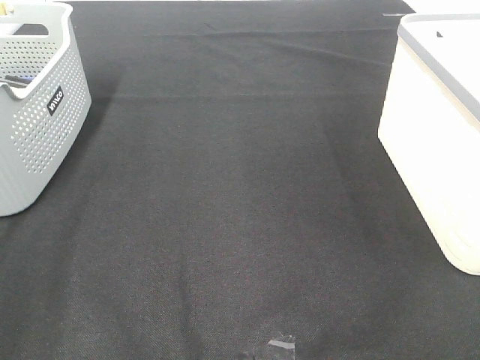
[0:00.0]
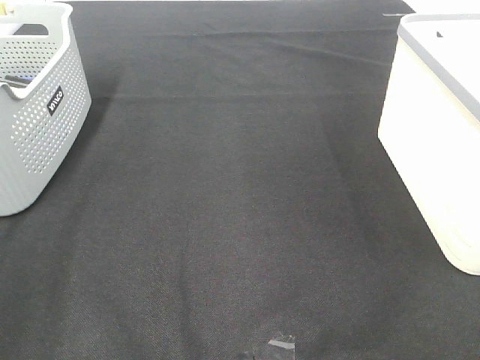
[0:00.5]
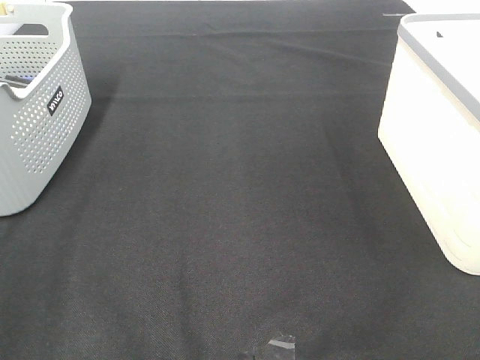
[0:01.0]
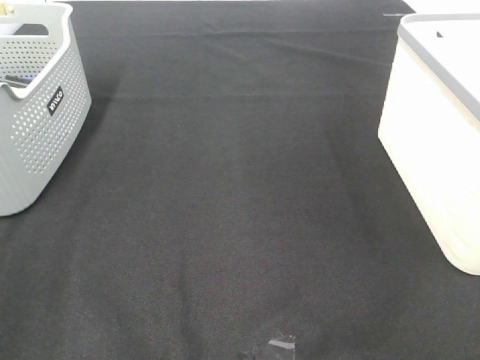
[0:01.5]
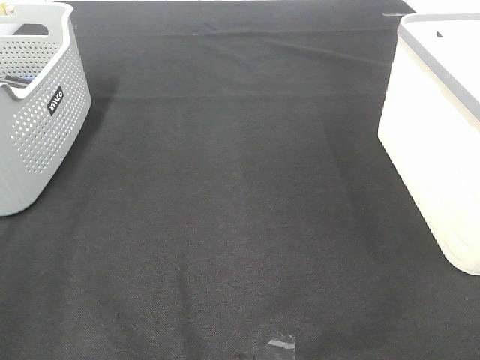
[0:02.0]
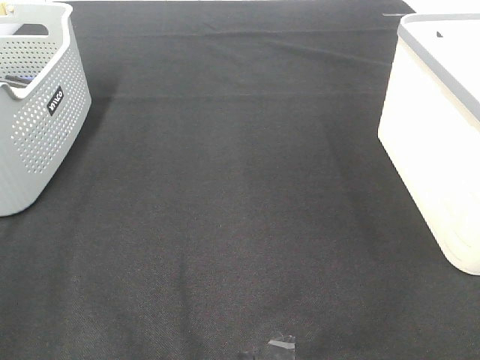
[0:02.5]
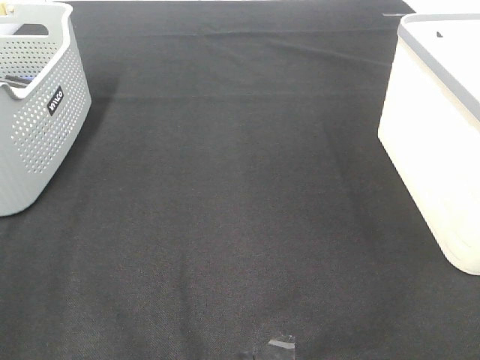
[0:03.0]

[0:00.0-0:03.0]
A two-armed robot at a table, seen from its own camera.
0:01.5 to 0:03.0: Both grippers stay about where they are.

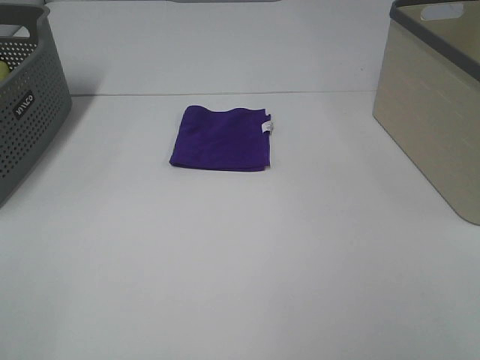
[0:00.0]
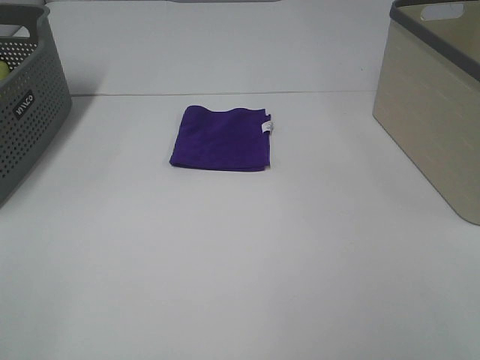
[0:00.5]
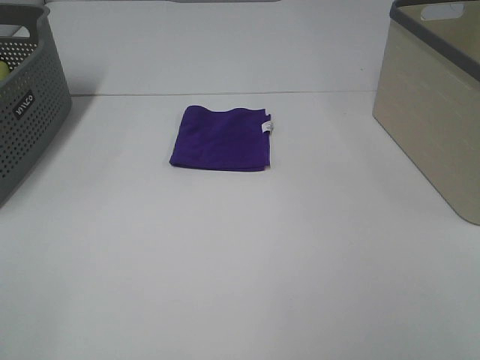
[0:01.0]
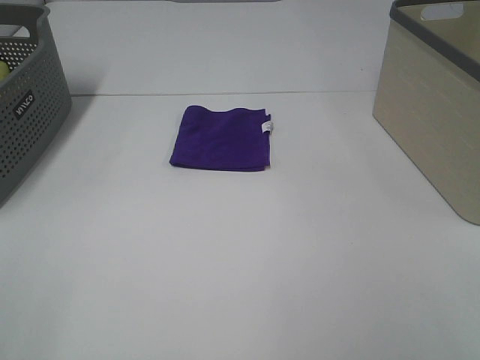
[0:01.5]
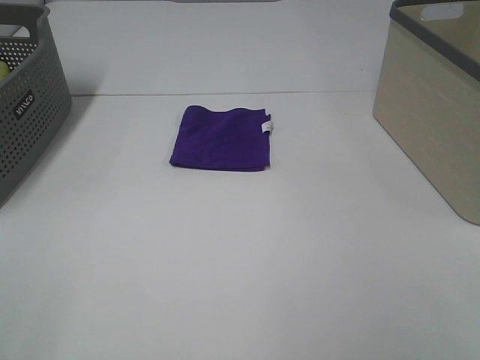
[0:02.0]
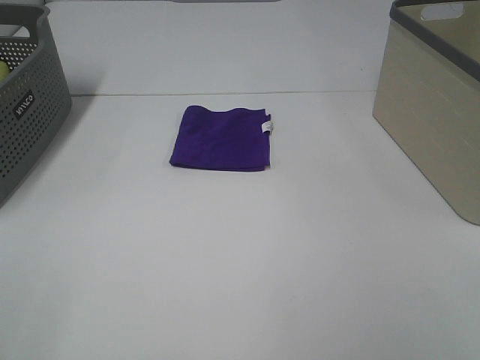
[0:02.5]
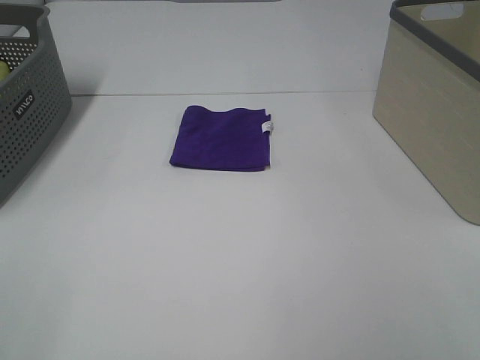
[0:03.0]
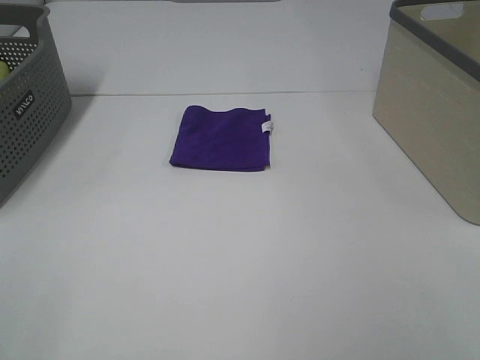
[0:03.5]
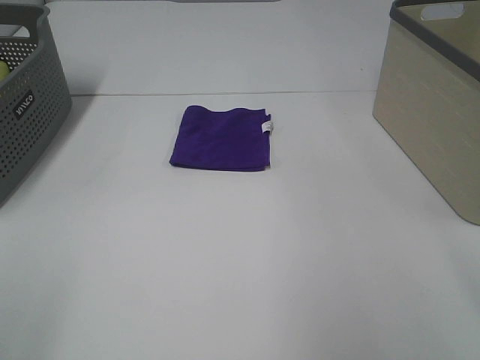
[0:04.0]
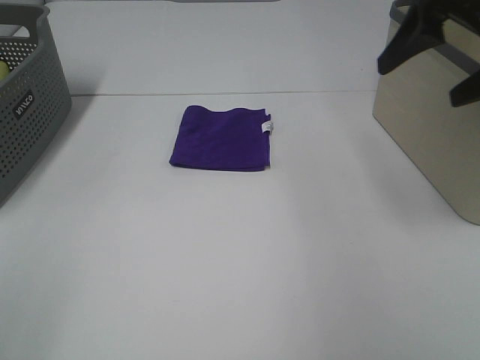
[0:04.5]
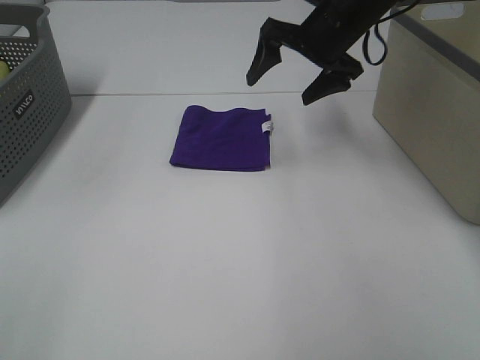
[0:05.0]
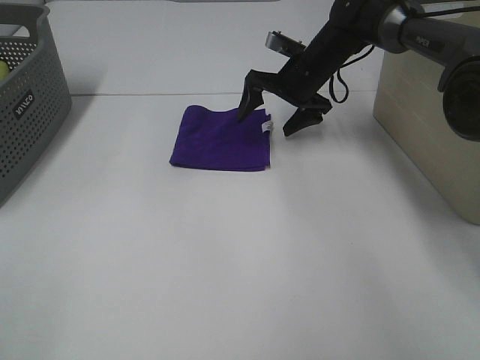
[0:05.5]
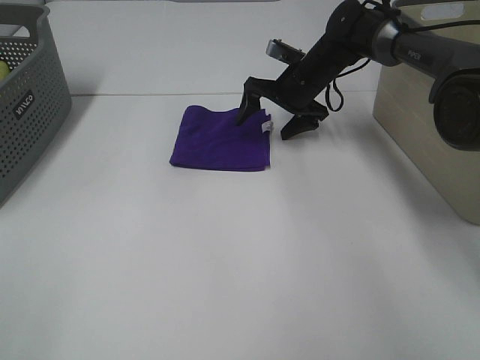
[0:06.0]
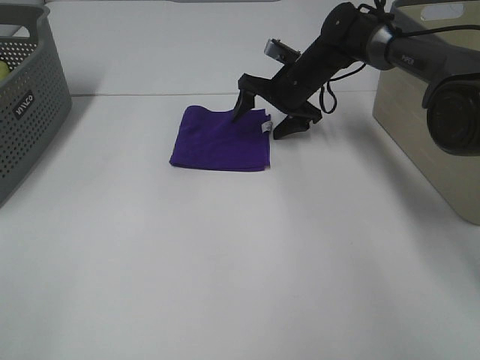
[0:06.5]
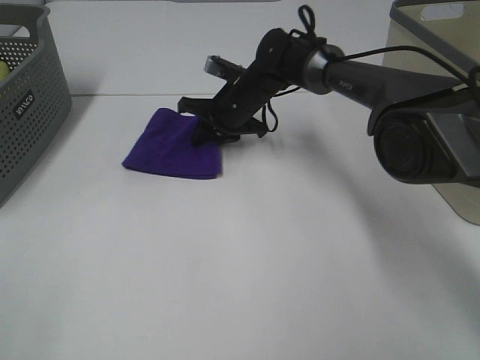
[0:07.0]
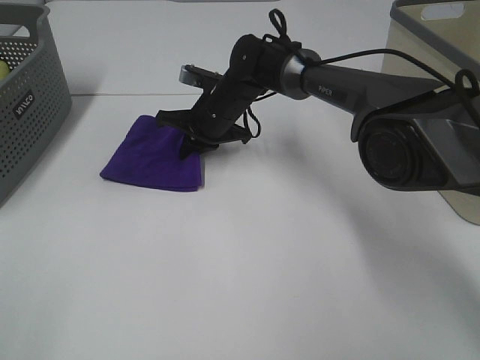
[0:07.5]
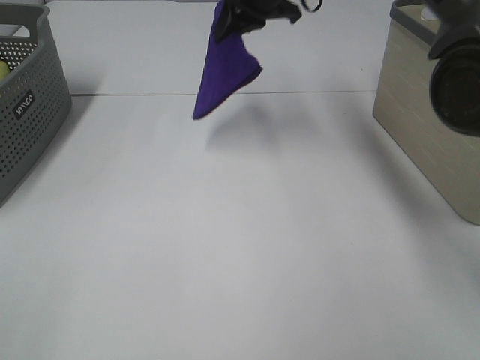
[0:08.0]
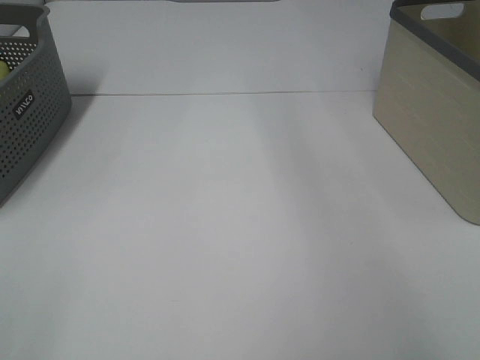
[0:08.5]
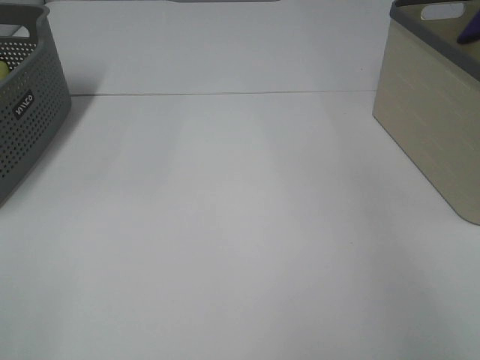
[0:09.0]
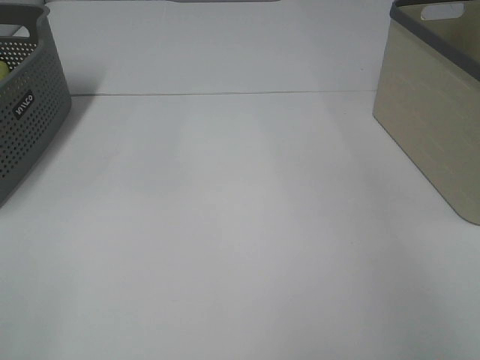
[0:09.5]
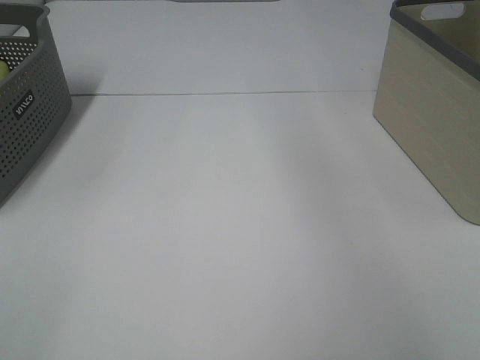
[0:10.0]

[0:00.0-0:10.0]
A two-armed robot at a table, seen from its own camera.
Step, 0:00.0 to 0:07.0: Right hand: grab the folded purple towel.
Step, 0:07.5 to 0:09.5: Right hand: place the purple towel in right basket.
0:00.0 to 0:02.0: Both grippers stay about where they are.
0:04.0 to 0:06.0: The right gripper shifts about 50 cm forward, downward and to the left.
0:06.0 to 0:08.0: The right gripper moves upward, roughly 20 cm, and closes up.
0:08.0 to 0:10.0: The right gripper is displaced to the right and upward by approximately 25 cm, and opens up.

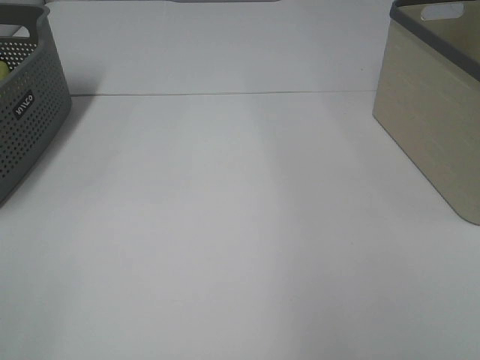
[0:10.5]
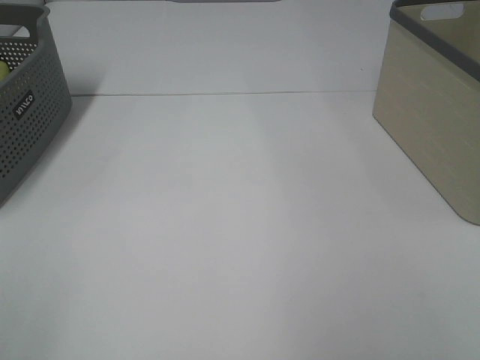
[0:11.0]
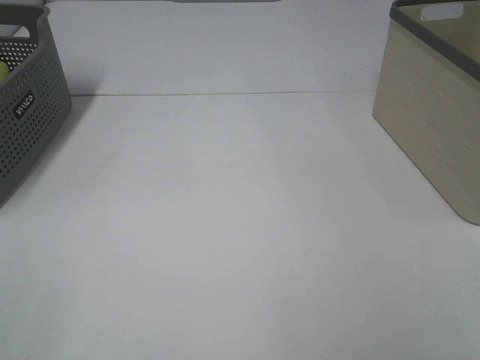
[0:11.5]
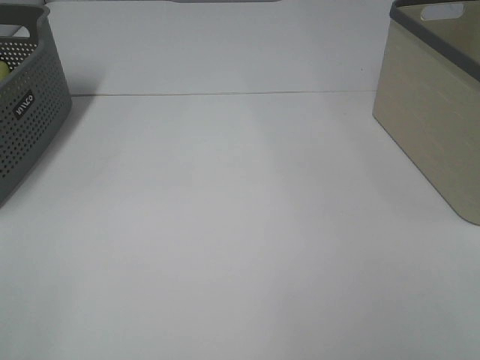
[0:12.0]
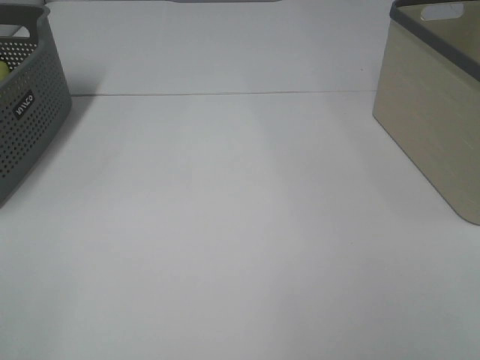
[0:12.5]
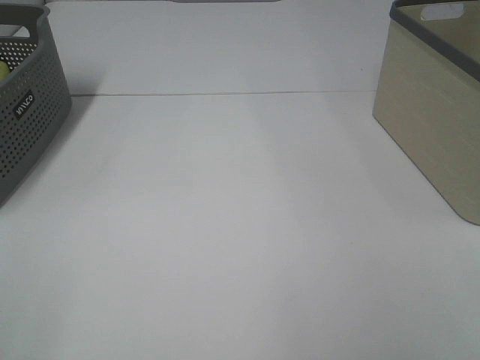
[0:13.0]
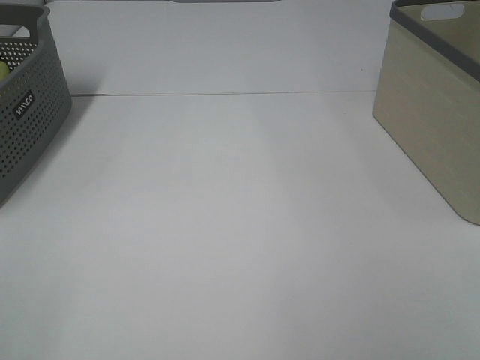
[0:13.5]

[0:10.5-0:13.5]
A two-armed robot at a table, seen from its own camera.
0:12.0 to 0:13.5: Both grippers stay put.

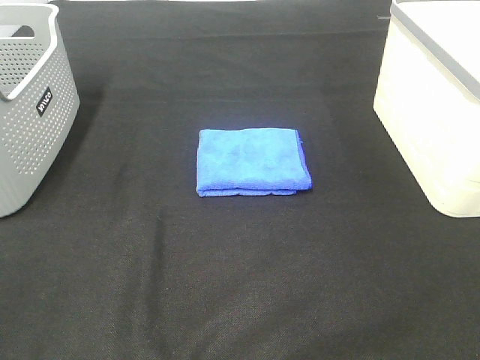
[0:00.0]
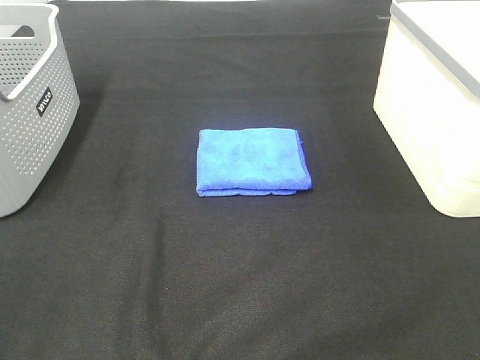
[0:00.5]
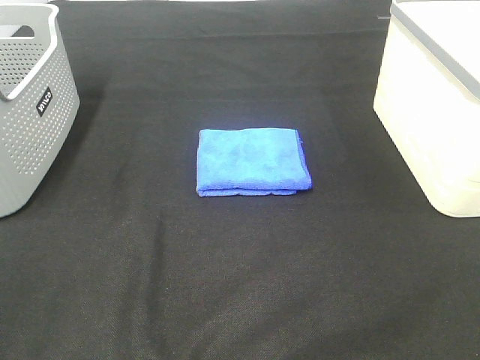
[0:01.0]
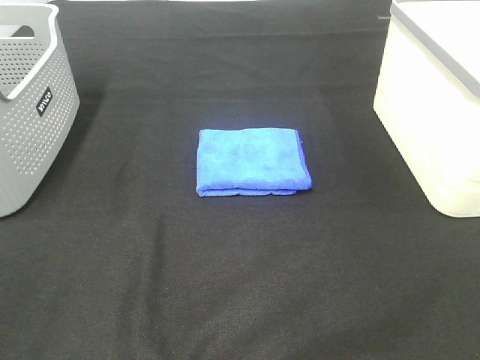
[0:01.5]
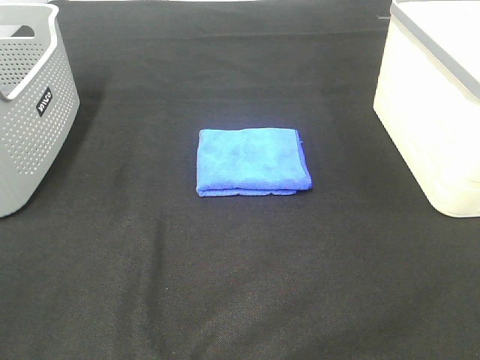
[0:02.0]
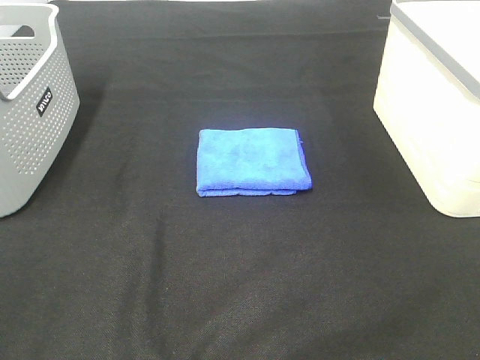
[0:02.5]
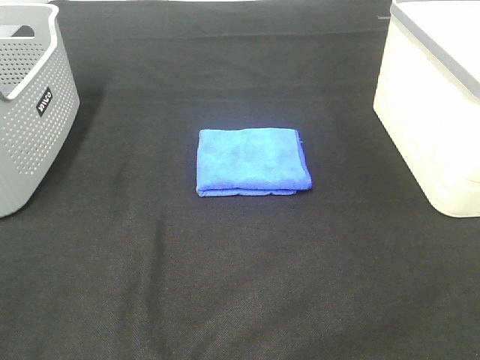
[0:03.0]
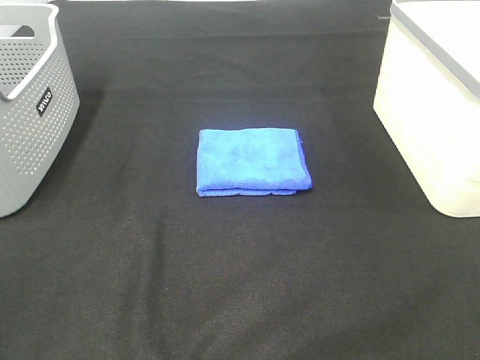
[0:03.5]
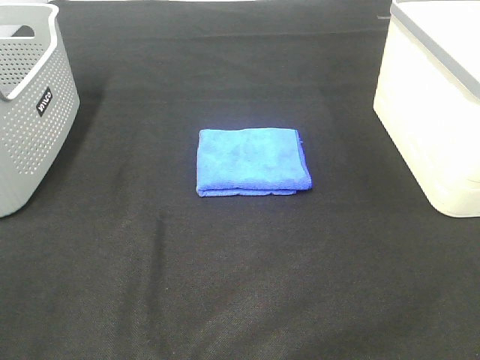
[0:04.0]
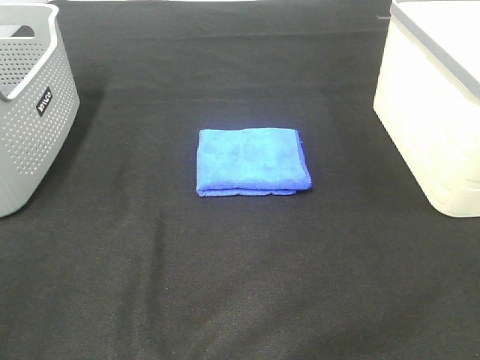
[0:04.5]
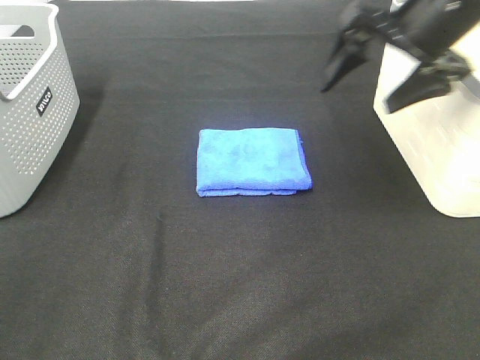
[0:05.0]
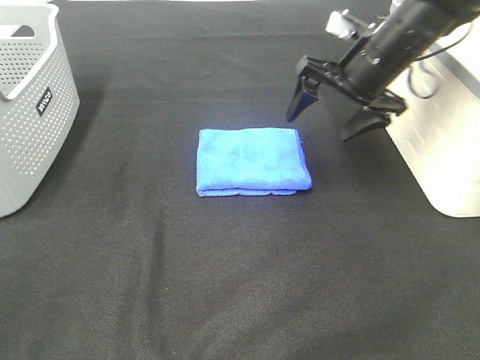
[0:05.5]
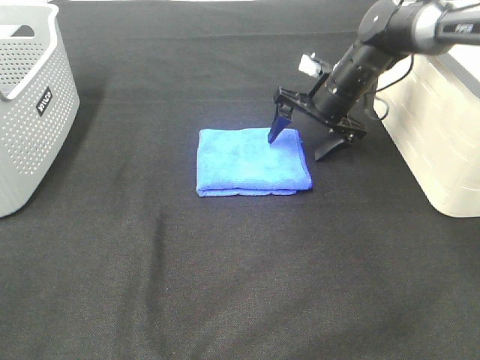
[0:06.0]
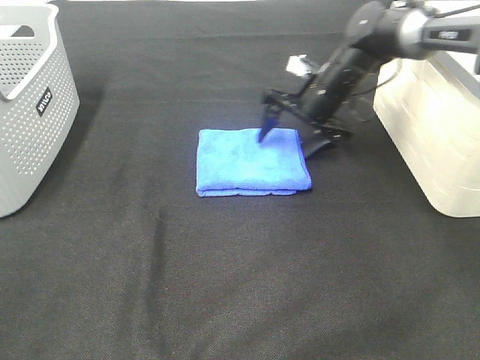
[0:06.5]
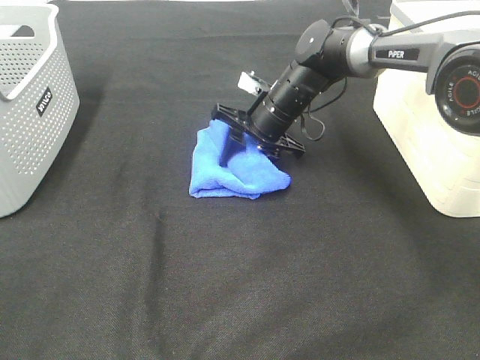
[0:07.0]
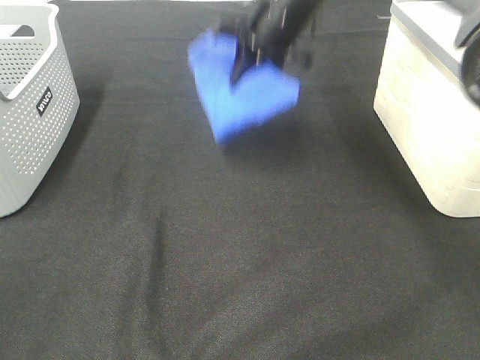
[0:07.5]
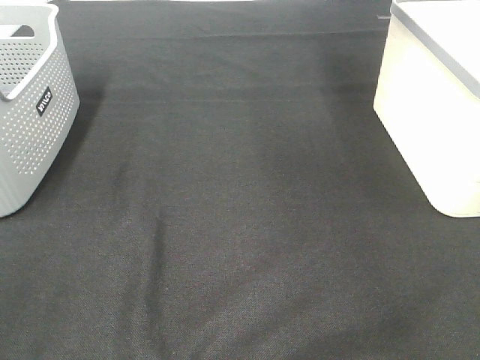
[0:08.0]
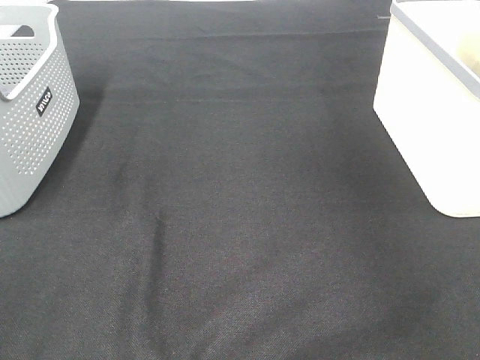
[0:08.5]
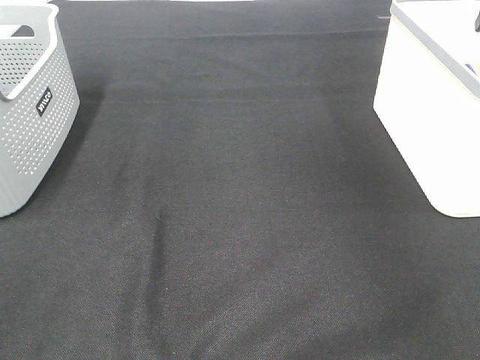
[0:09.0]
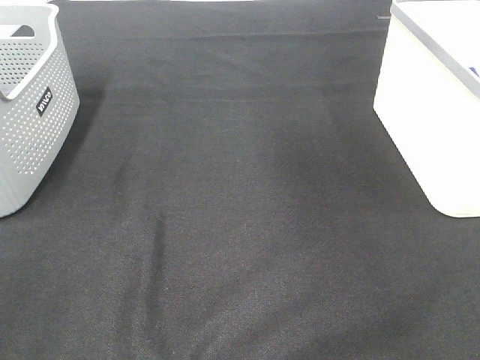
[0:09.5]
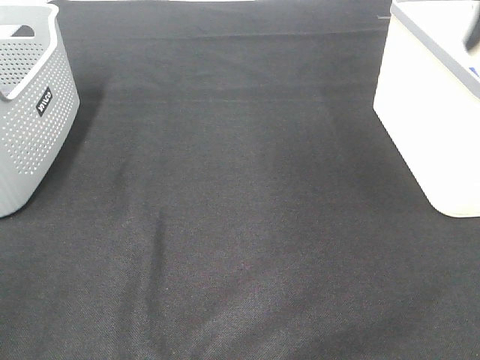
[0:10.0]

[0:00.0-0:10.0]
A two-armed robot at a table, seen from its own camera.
Step, 0:00.0 to 0:07.0: Right hand: grab the folded blue towel.
Step, 0:07.5 to 0:08.5: Right hand: place the blue towel in right basket.
0:00.0 to 0:02.0: Neither gripper changes place.
0:04.0 to 0:06.0: The right gripper moves forward and downward, approximately 50 cm.
0:06.0 to 0:08.0: The right gripper moves upward, approximately 30 cm, and closes.
0:08.0 to 0:10.0: The right gripper goes approximately 20 cm backward, and opens its fingers.
